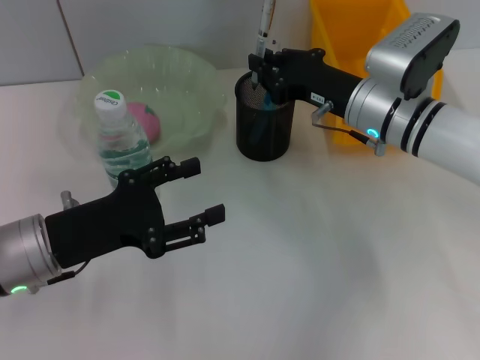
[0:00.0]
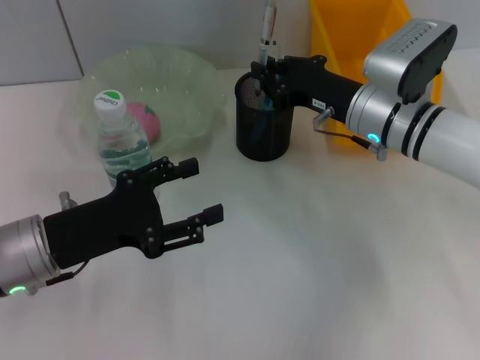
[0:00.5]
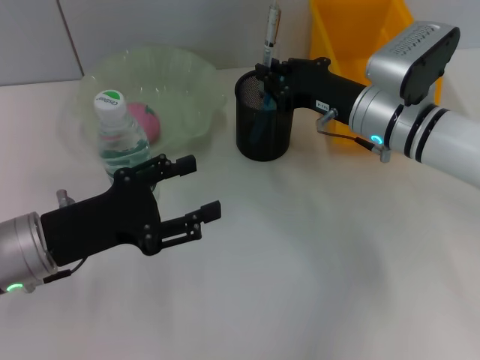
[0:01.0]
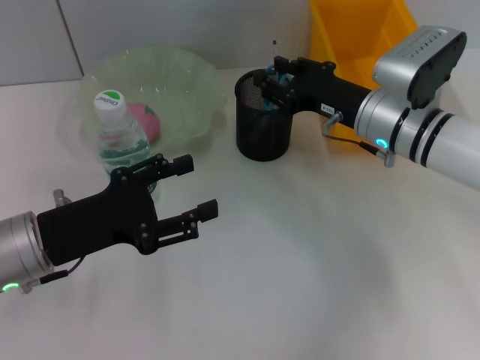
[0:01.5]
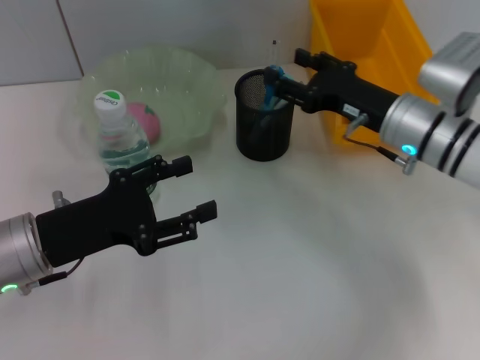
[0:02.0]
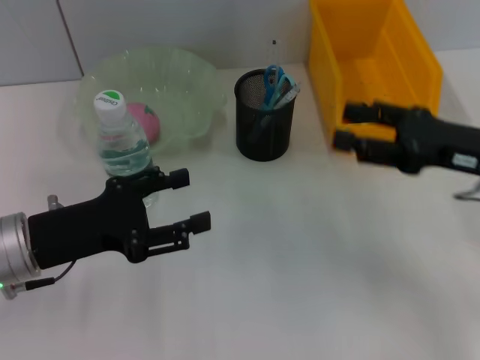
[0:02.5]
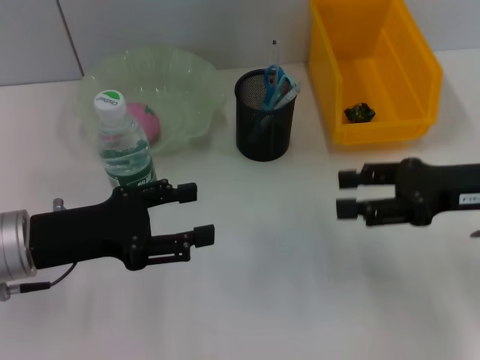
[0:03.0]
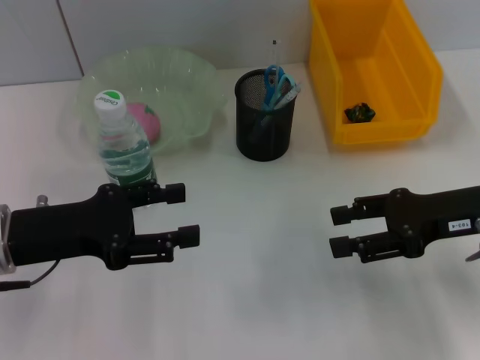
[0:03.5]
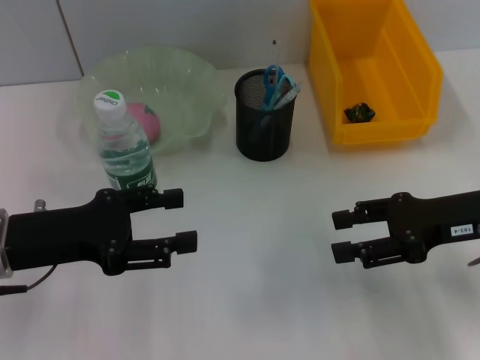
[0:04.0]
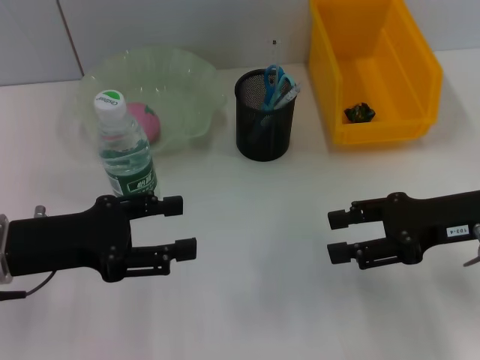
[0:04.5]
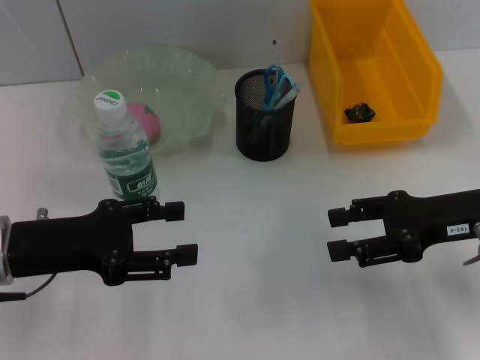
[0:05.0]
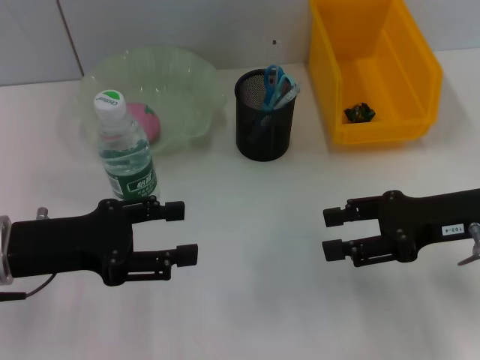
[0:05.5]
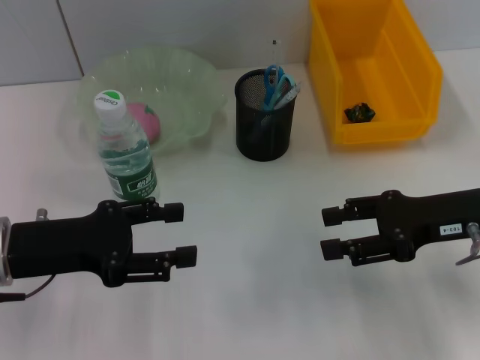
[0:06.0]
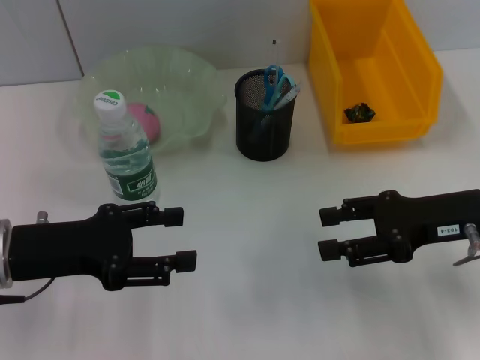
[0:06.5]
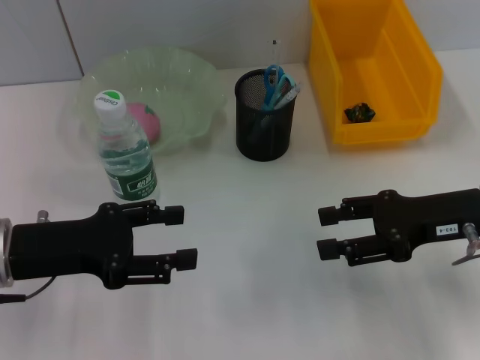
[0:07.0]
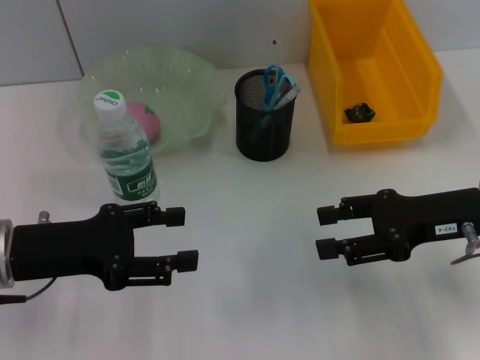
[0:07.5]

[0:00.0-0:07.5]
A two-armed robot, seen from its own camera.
0:00.0 to 0:02.0: The right gripper opens.
0:02.0 to 0:04.0: The right gripper travels backward and to the right by roughly 10 cm.
0:04.0 to 0:07.5: Both grippers stay about where they are.

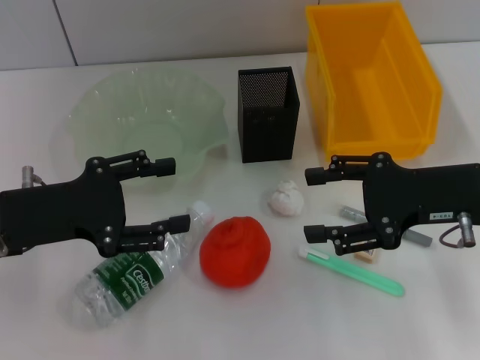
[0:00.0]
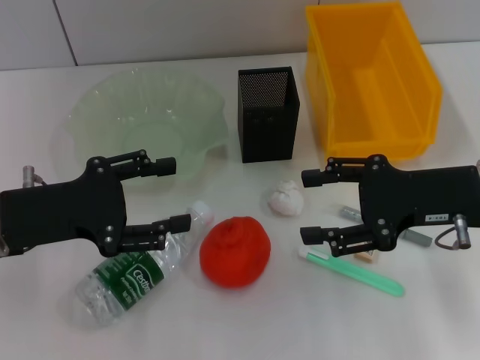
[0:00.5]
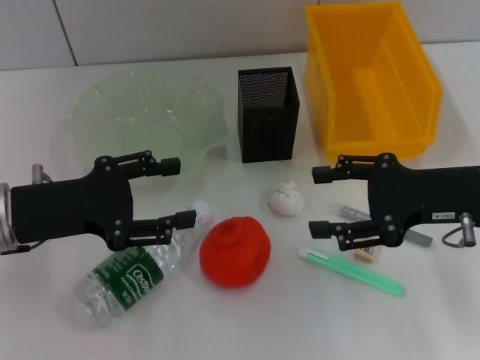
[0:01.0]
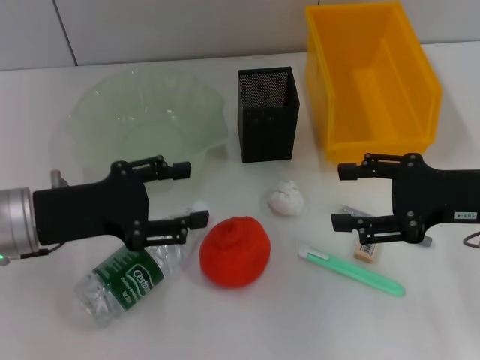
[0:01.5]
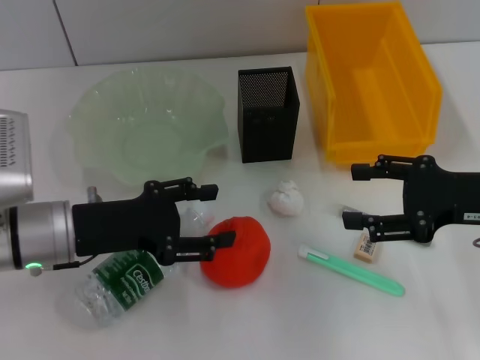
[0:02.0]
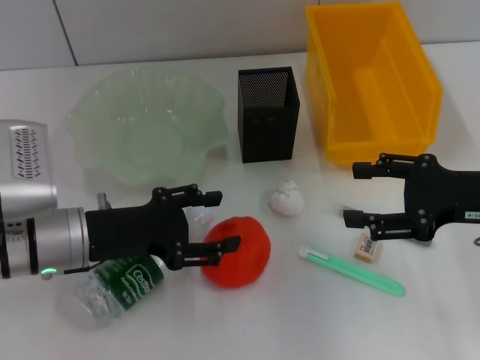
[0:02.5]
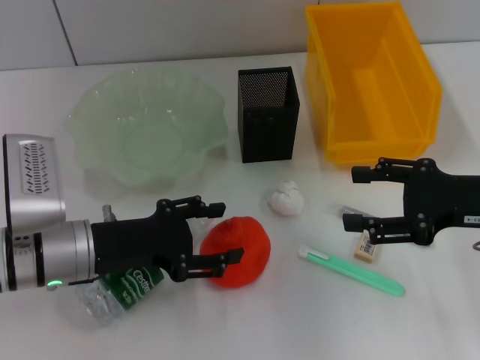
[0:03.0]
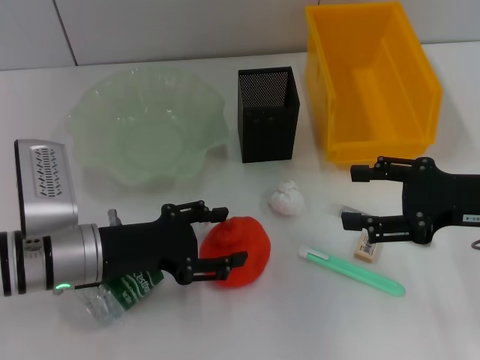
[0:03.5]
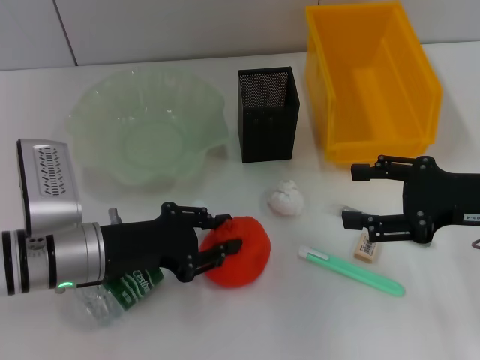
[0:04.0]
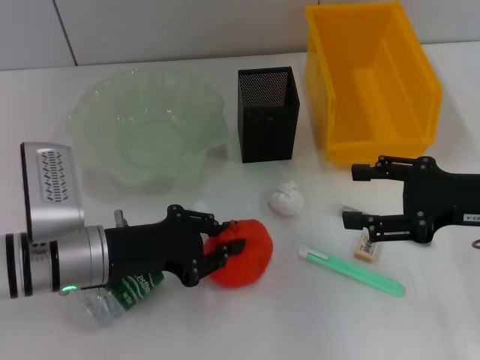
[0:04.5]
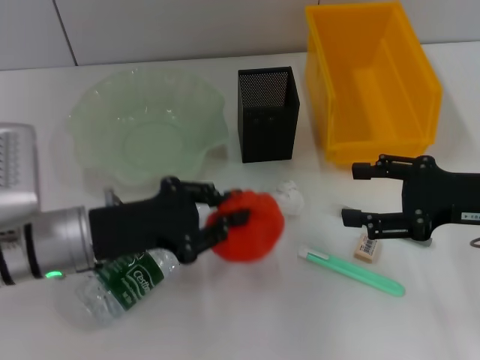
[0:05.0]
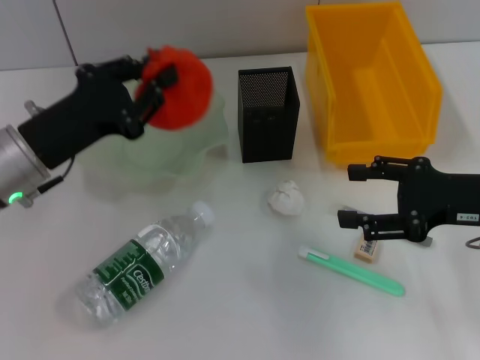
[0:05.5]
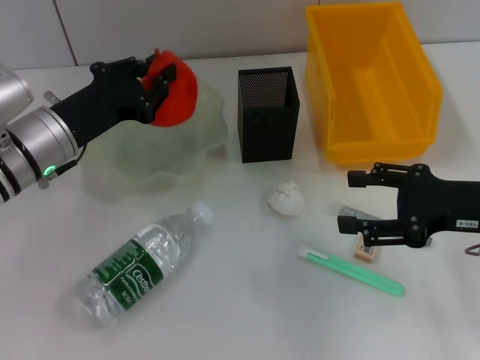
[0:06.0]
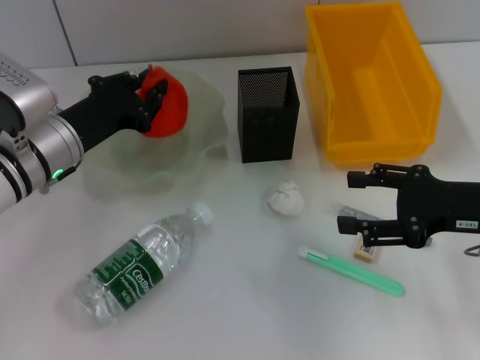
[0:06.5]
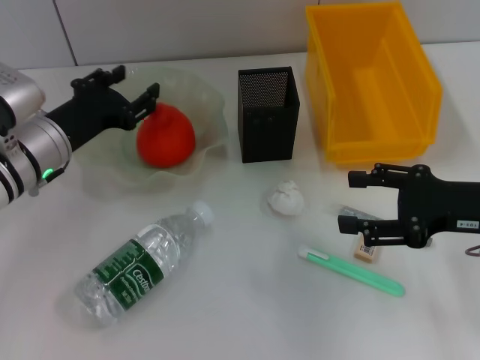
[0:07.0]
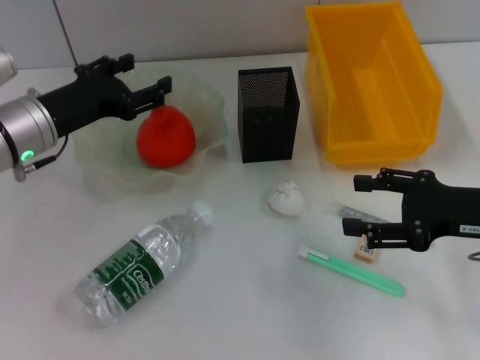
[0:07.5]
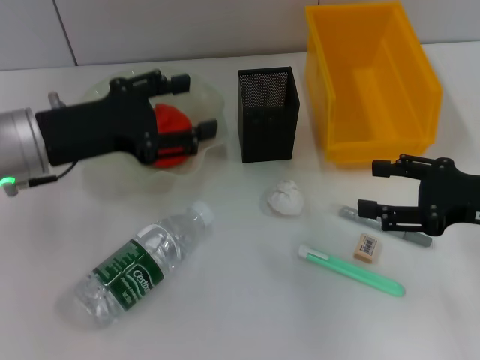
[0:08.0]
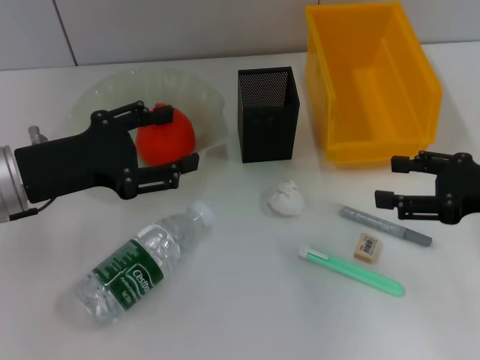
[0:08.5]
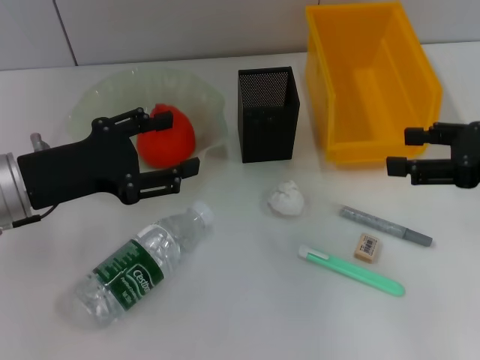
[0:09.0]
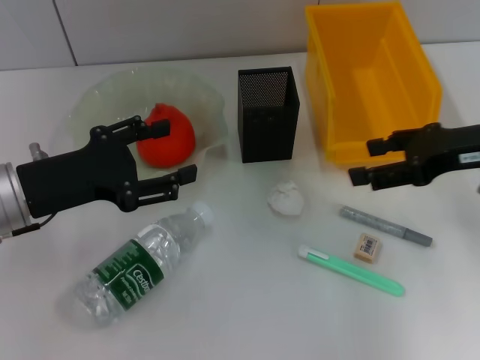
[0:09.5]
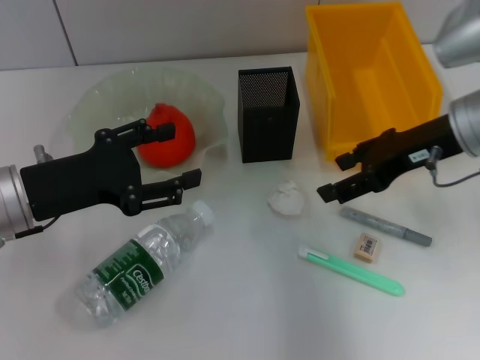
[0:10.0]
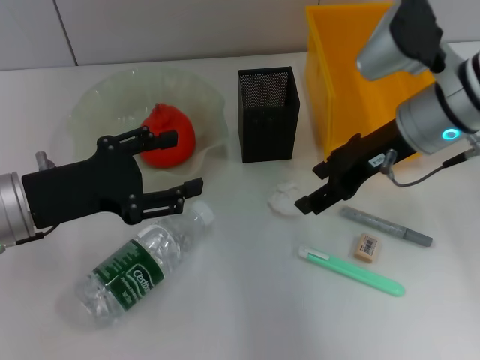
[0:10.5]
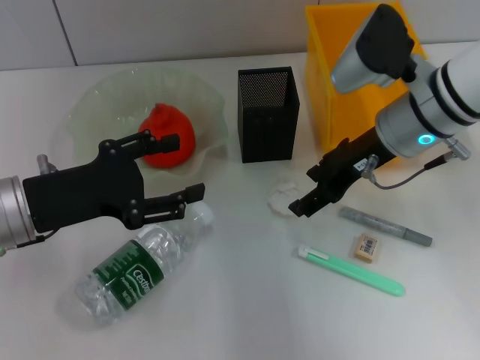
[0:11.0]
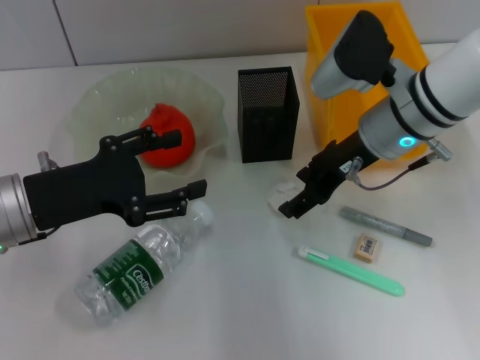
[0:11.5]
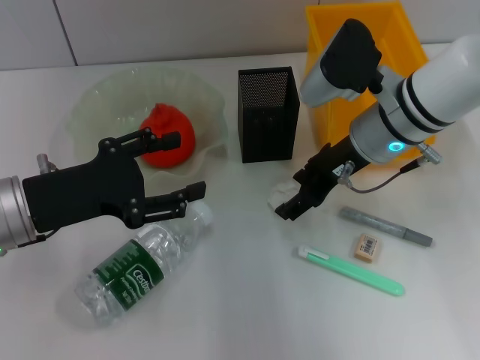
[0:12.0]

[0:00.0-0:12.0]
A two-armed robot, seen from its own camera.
Step, 0:00.0 to 0:04.5: Grab the orange with the left hand.
Step, 0:05.0 to 0:06.5: Place the orange into the fruit bowl with the left hand.
0:00.0 to 0:02.0: The left gripper shifts by roughly 5 cm.
0:02.0 to 0:04.0: The grippers stay close to where they were, moving slightly.
0:04.0 to 0:06.0: The left gripper shifts about 5 cm forward, and closes up.
0:06.0 to 0:08.0: The left gripper moves upward, about 5 cm, and opens its fingers.
0:08.0 to 0:10.0: The right gripper shifts roughly 15 cm forward, to the left and upward.
0:10.0 to 0:12.0: The right gripper heads to the left, covering some 10 cm.

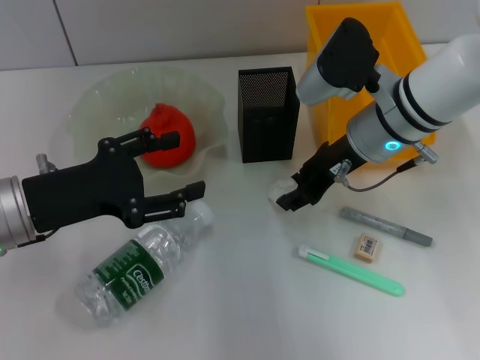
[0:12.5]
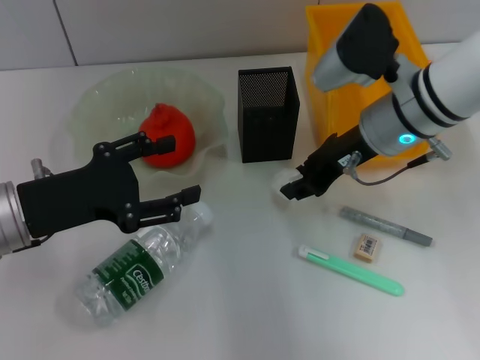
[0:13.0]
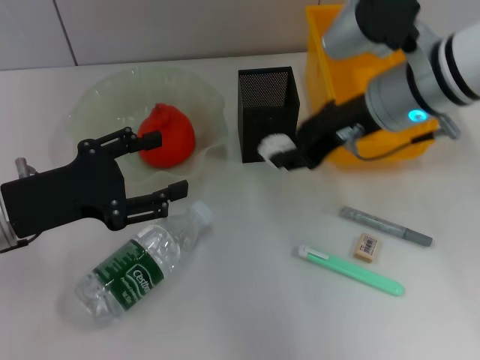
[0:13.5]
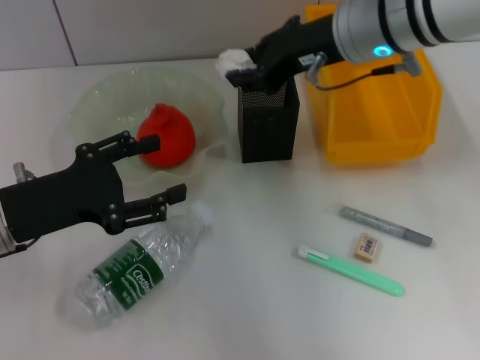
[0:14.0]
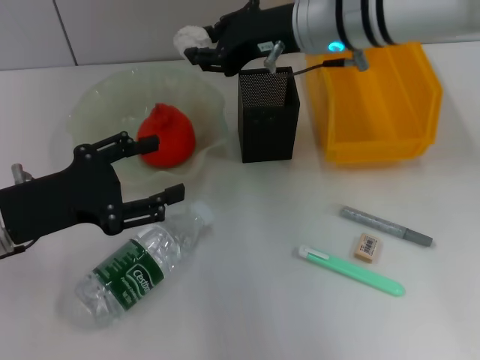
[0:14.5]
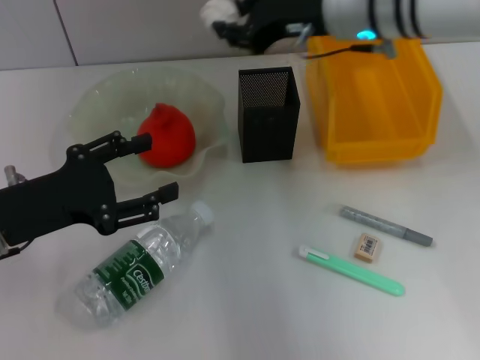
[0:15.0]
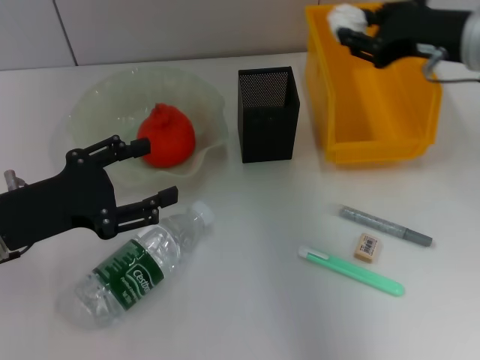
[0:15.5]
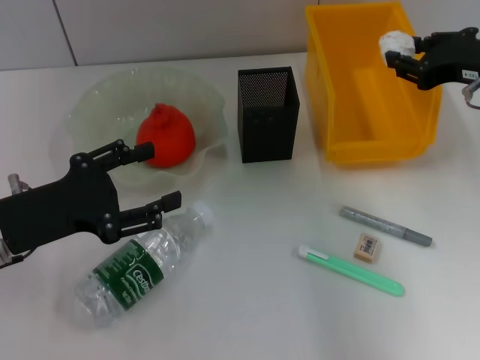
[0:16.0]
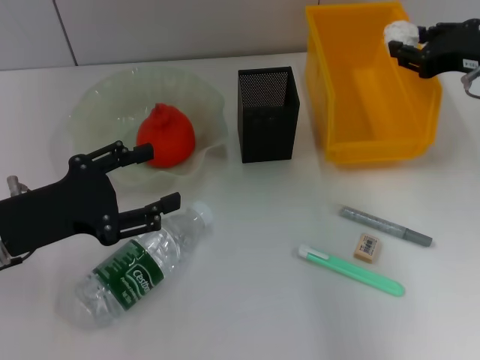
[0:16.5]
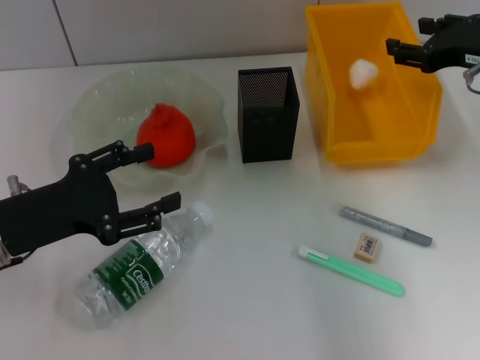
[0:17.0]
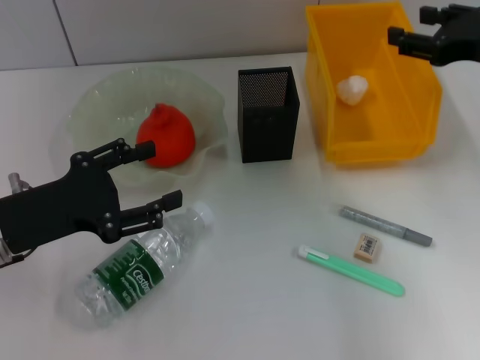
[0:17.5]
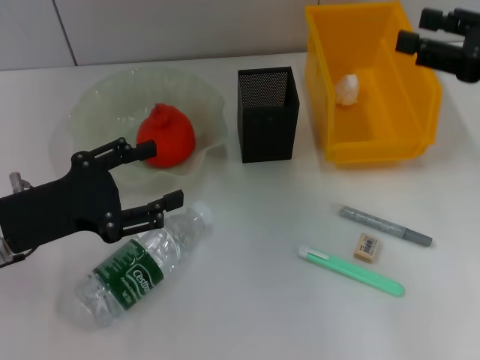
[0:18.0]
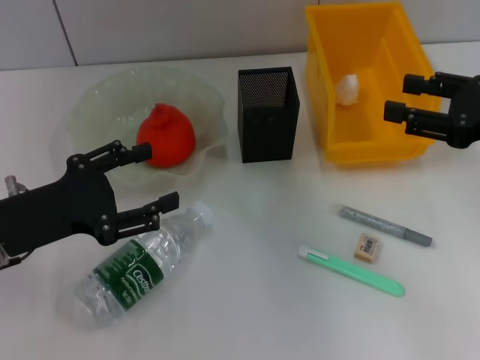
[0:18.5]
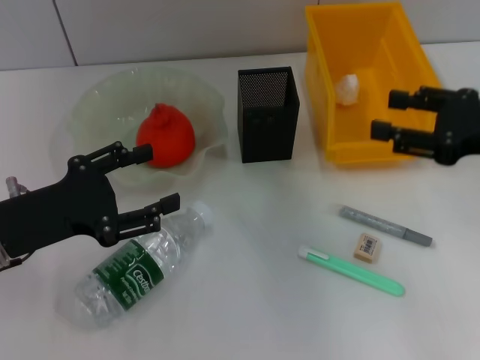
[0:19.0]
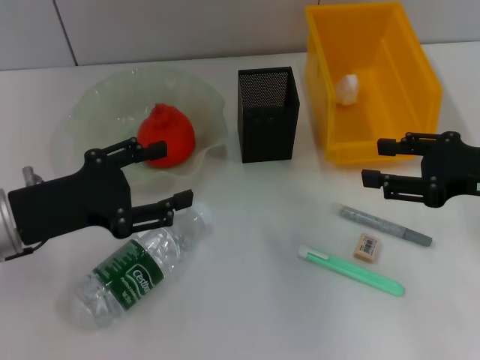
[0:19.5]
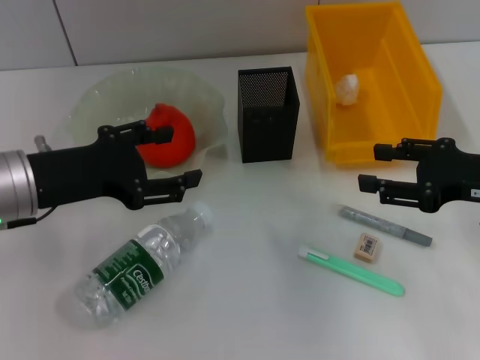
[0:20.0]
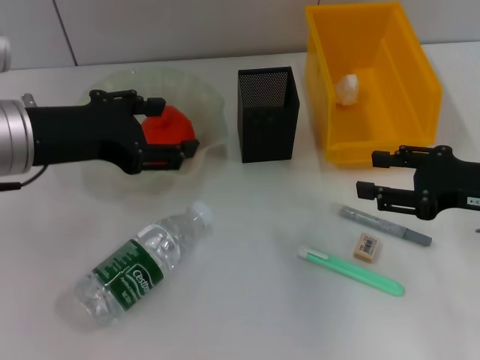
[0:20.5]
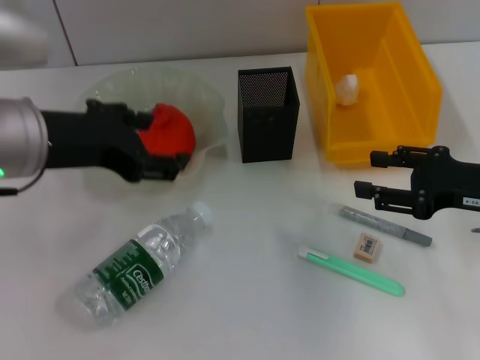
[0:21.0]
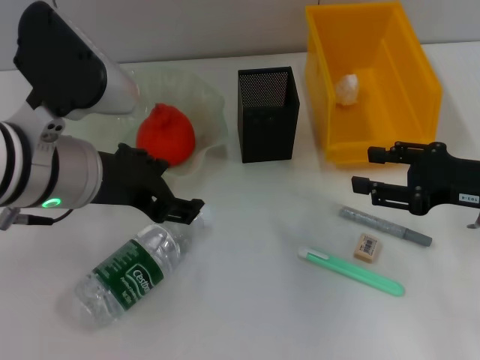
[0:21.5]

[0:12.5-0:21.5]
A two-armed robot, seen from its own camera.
Step, 0:12.5 to 0:17.0: Place the paper ball into the trash can with the right hand.
0:12.5 to 0:14.5: The right gripper heads upward, covering approximately 5 cm, and closes up.
0:14.5 to 0:17.0: The right gripper is displaced to the right by some 20 cm, and opens.
0:17.0 to 0:19.5: The right gripper moves backward, roughly 10 cm.
0:19.5 to 0:21.5: The left gripper goes approximately 10 cm to the right and upward.
